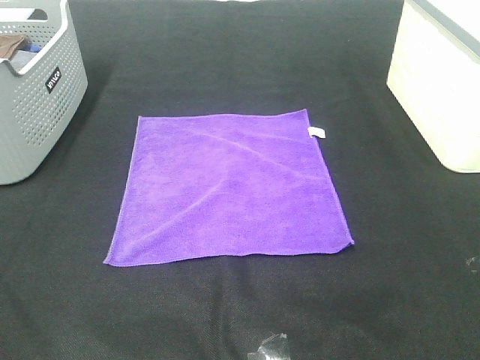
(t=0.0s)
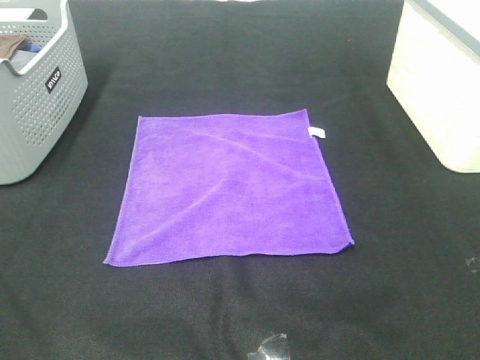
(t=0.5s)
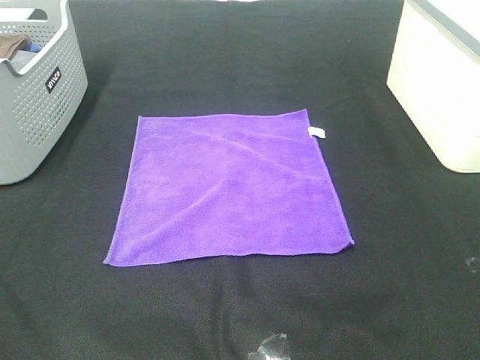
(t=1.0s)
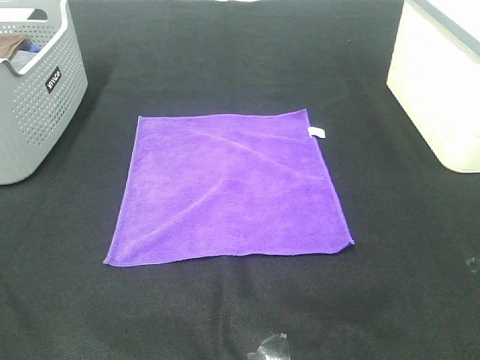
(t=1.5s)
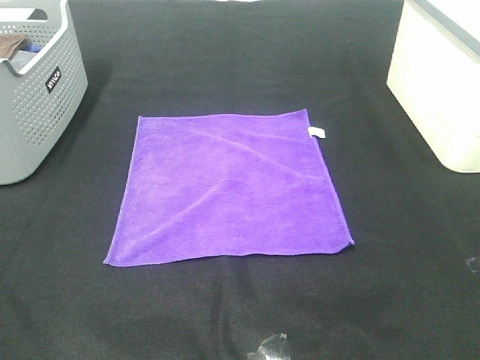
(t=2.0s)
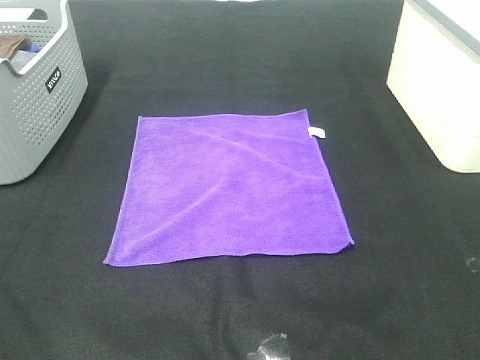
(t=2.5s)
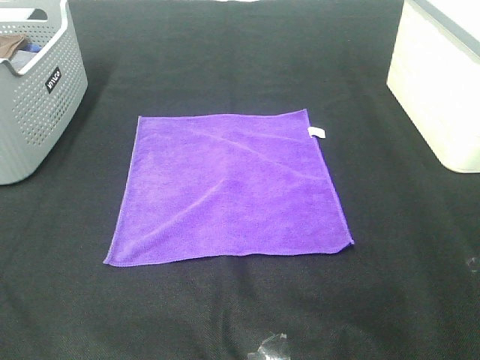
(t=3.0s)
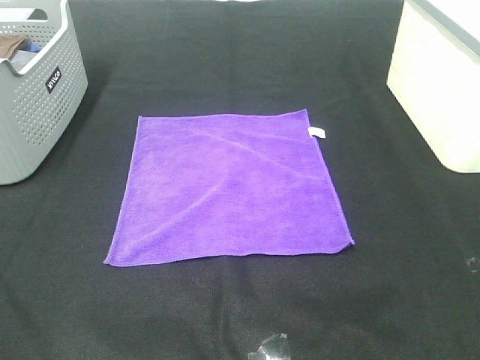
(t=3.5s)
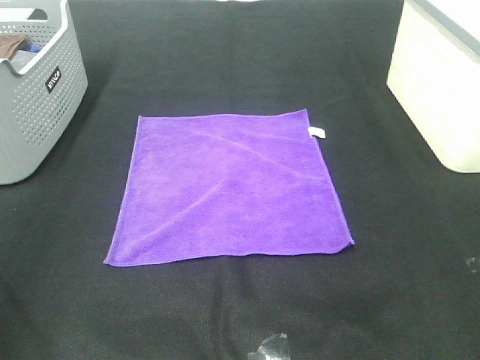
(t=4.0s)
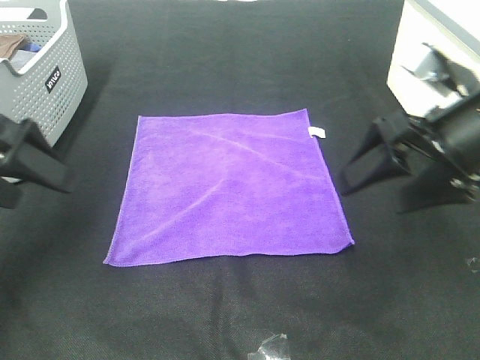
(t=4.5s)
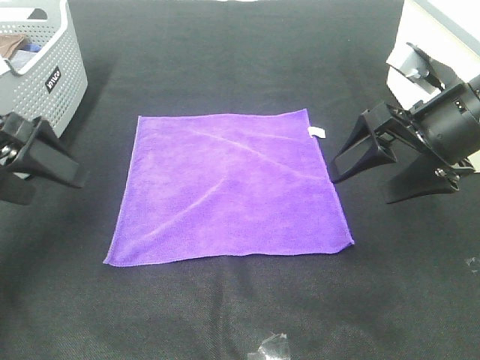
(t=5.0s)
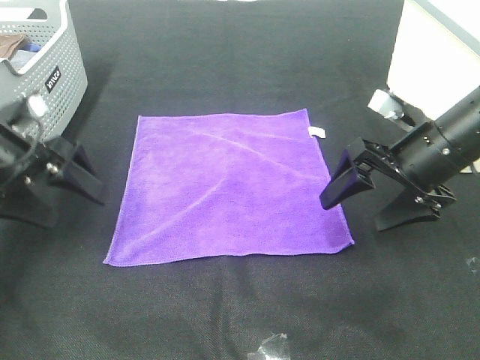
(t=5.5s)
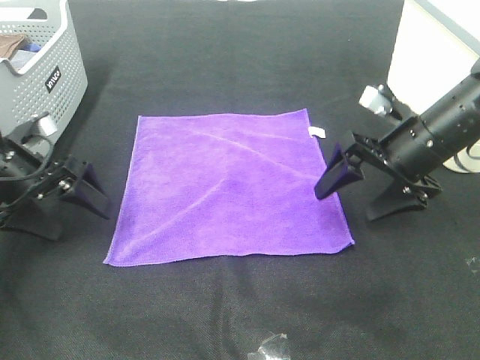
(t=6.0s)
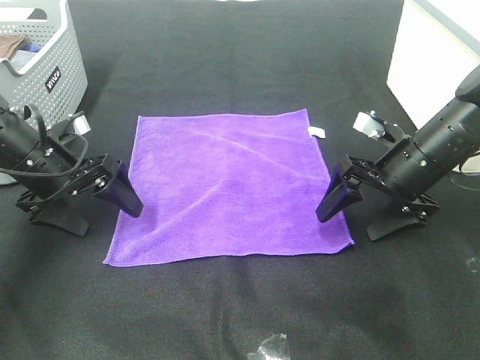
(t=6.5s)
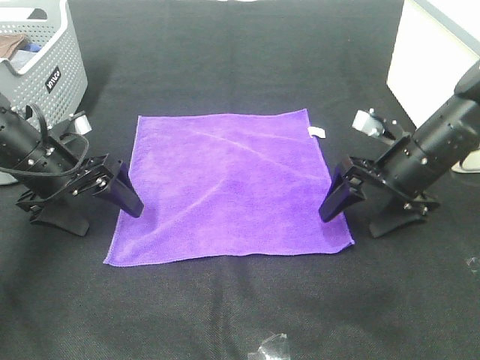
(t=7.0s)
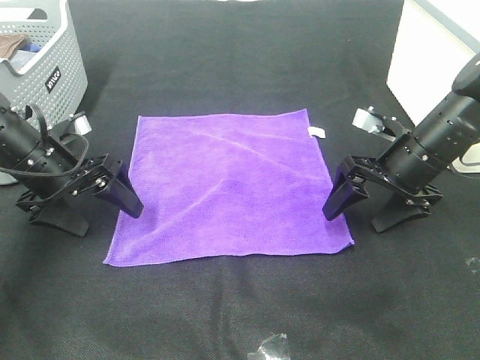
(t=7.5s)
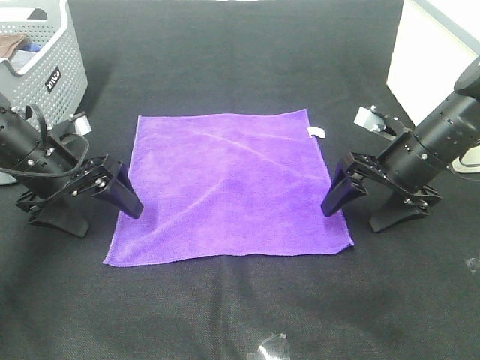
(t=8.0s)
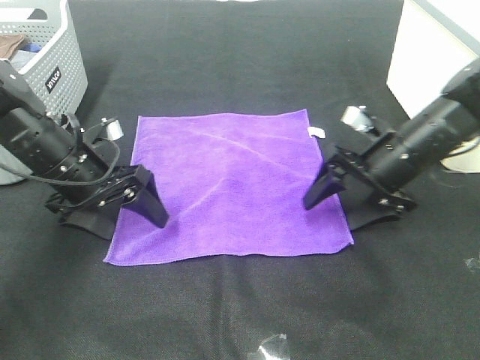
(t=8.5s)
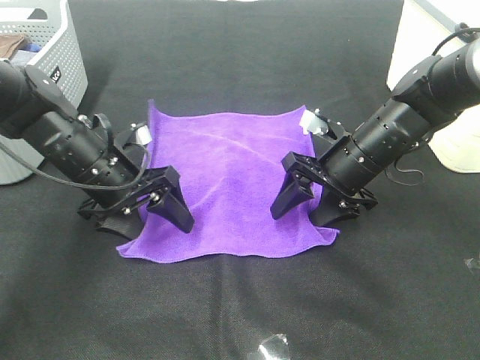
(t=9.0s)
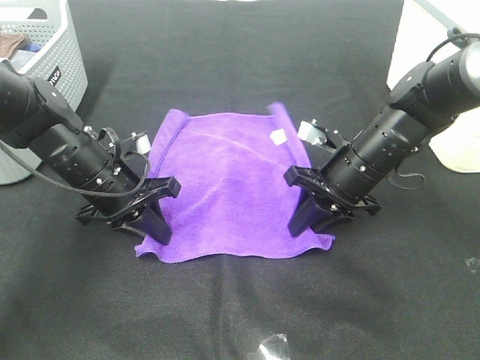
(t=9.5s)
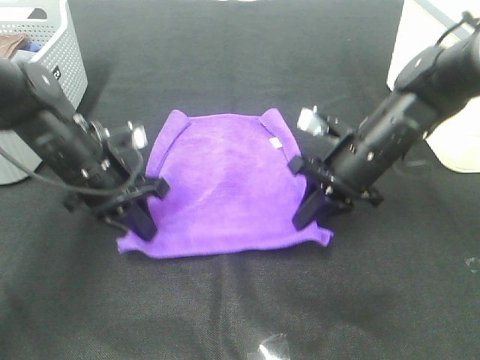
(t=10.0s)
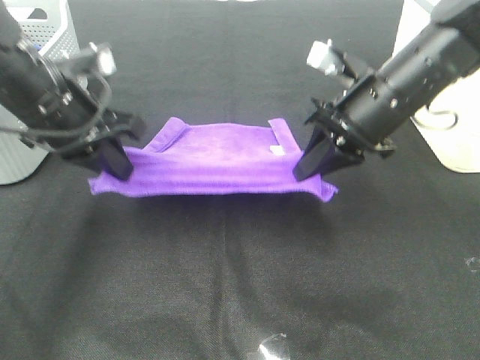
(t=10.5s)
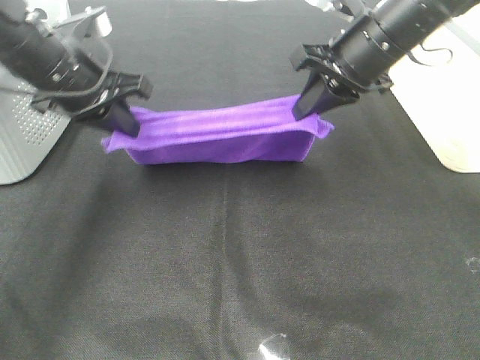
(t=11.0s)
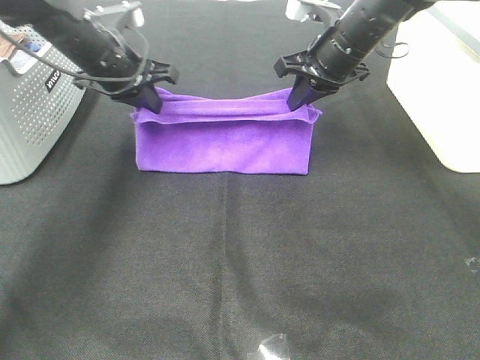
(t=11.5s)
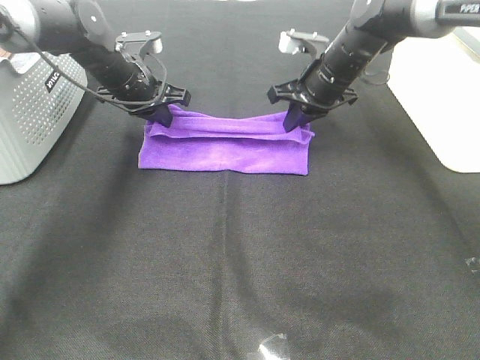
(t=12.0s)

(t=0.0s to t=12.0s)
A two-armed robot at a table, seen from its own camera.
Task of the whole recording: Fold towels.
Step, t=0.0s - t=9.5s: Left hand: grab the bottom left corner of purple towel.
Step, t=0.0s - t=9.5s: Right hand: grab the bottom right corner of purple towel.
t=0.0s - t=2.0s: Both grippers stay about where they are.
t=4.0s - t=6.0s: The left gripper heads downward and forward, covering about 30 cm. The right gripper shifts roughly 30 cm forward and downward.
t=6.0s - t=8.0s: The grippers make only small movements.
t=8.0s - t=10.0s: The left gripper heads to the right, covering some 5 cm, and closes. The right gripper heads to the left, covering some 5 cm, and closes up.
t=10.0s - t=12.0s: Both grippers move forward, roughly 15 cm.

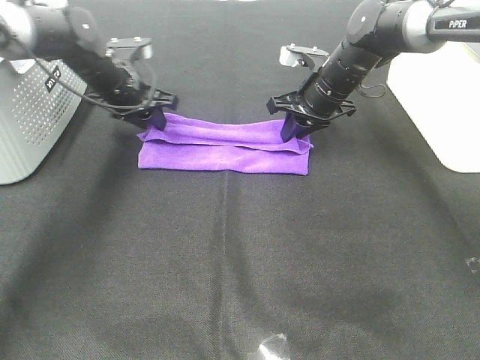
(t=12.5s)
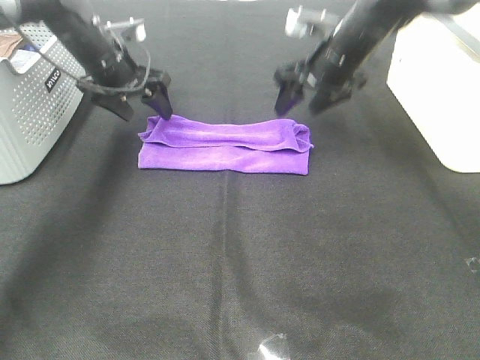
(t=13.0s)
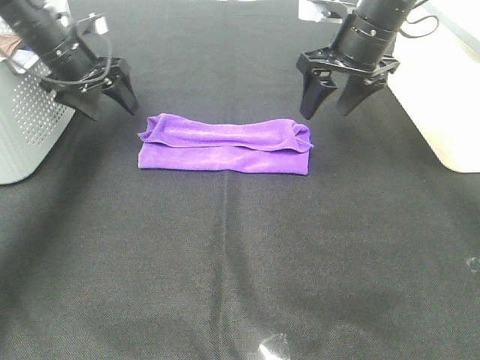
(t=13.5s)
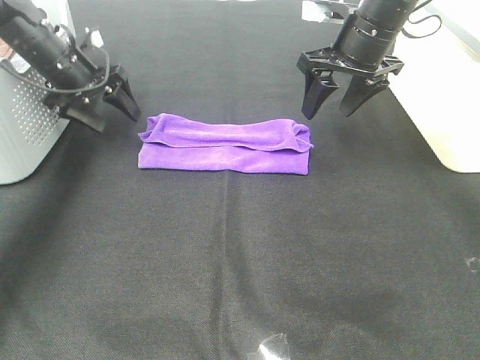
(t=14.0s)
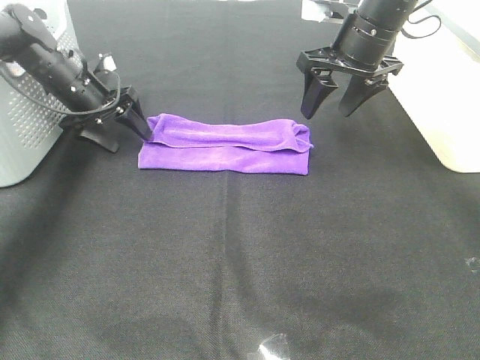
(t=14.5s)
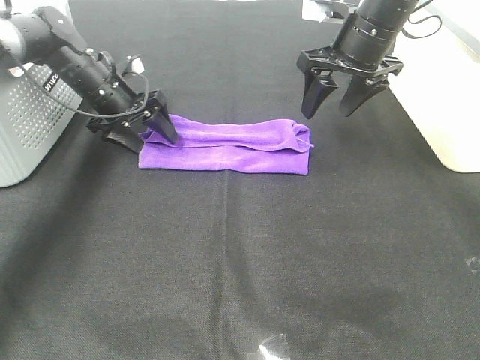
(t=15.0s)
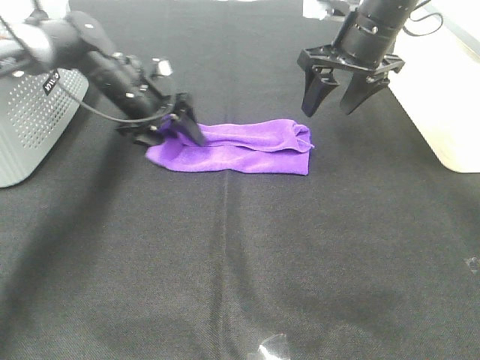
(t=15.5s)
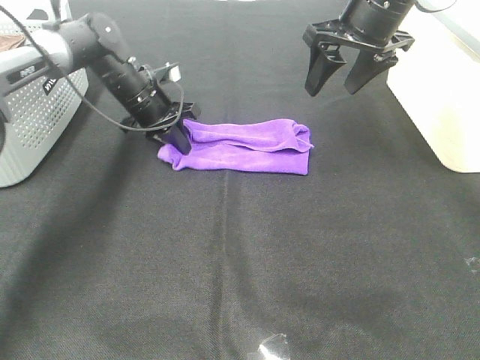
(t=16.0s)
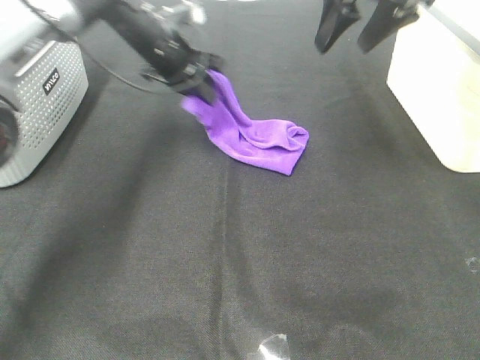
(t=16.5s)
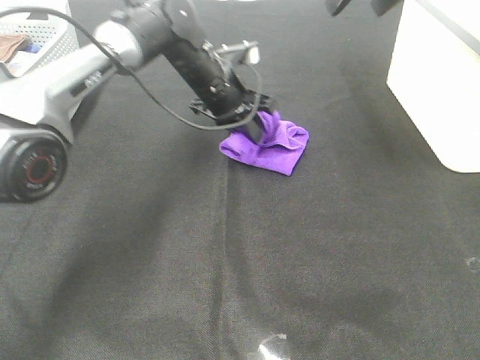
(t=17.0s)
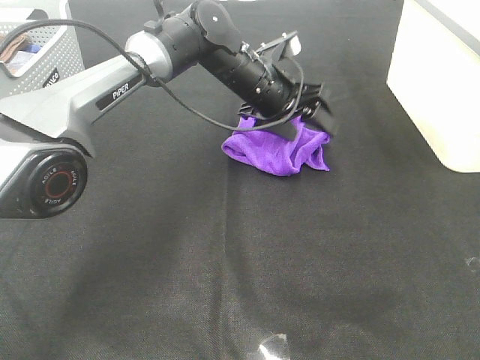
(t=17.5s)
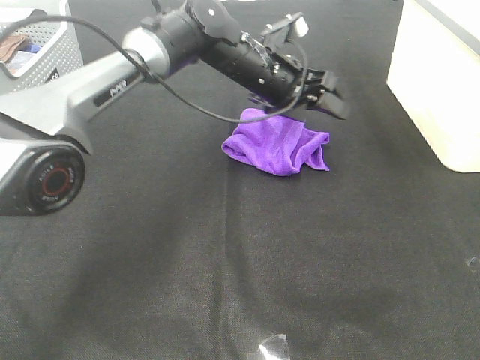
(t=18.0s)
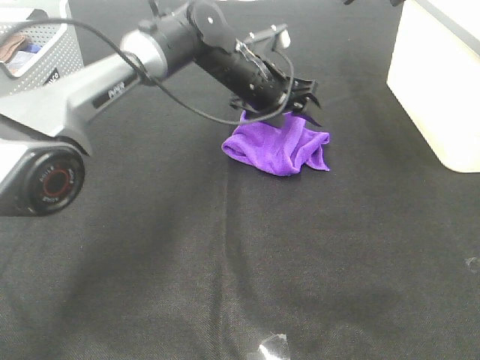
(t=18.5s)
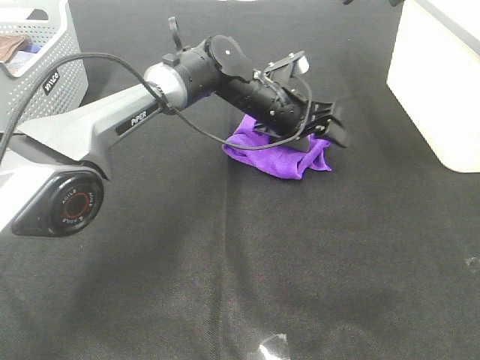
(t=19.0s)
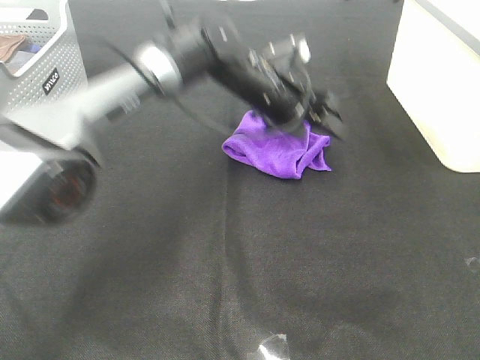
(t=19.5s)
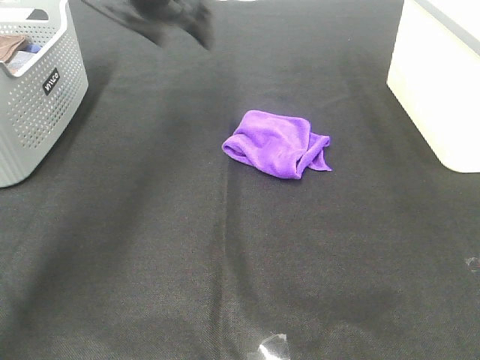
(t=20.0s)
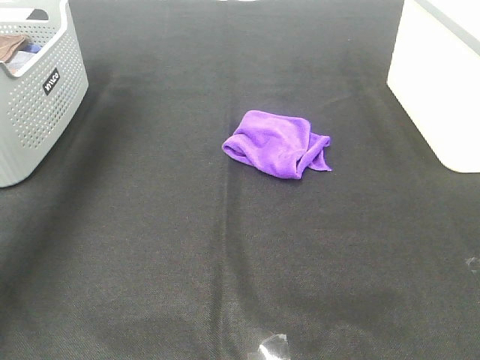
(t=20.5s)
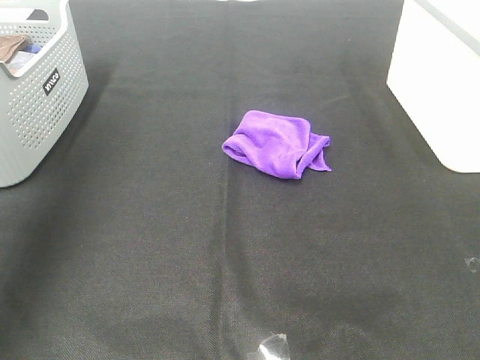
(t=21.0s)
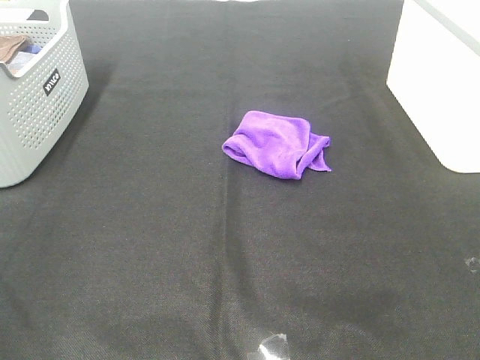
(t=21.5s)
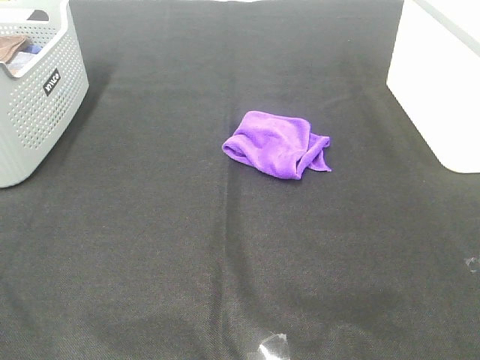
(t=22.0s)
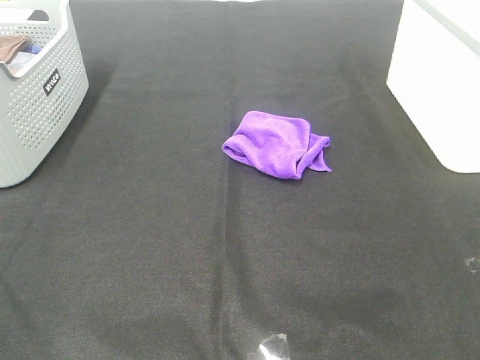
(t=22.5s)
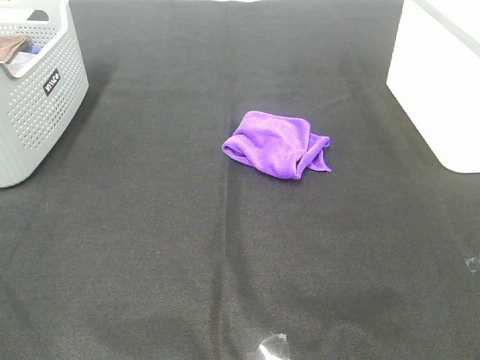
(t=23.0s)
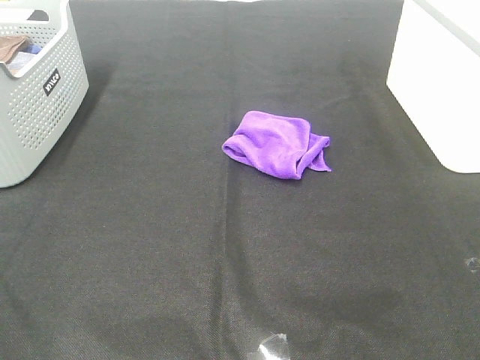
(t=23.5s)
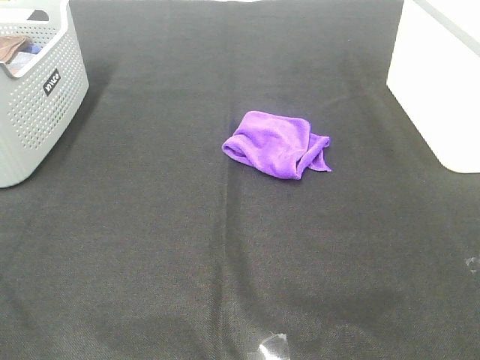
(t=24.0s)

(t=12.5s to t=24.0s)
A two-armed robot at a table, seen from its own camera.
Task of the whole recording: Fold towels.
Step, t=12.5s - t=17.0s: Left hand: fold the purple towel from left to right.
t=12.5s - t=14.5s: The left gripper goes approximately 5 cm to the left. The right gripper heads upward, covering some 10 cm, and opens up.
t=14.5s - t=16.5s: The right gripper goes about 10 cm upward, while the left gripper shifts some 15 cm to the right and upward, and closes up.
t=16.5s - t=18.5s: The right gripper heads upward, covering approximately 5 cm. Meanwhile the left gripper moves to the right, some 10 cm, and opens its fingers.
t=18.5s - t=20.0s: The left gripper heads to the left and upward, covering roughly 20 cm, while the right gripper shifts approximately 10 cm backward and upward.
t=20.0s - t=22.0s: The left gripper moves backward, roughly 50 cm, while the right gripper heads backward and downward, covering some 35 cm.

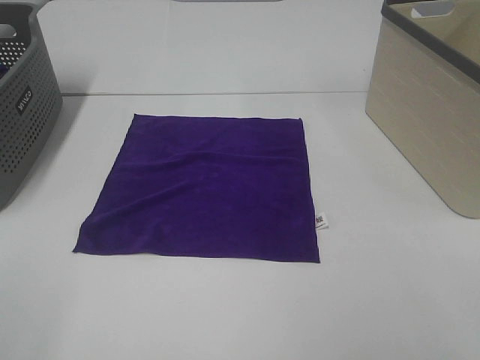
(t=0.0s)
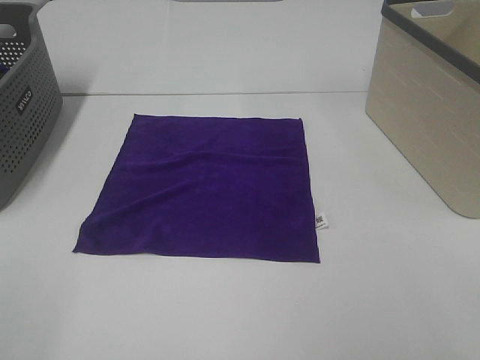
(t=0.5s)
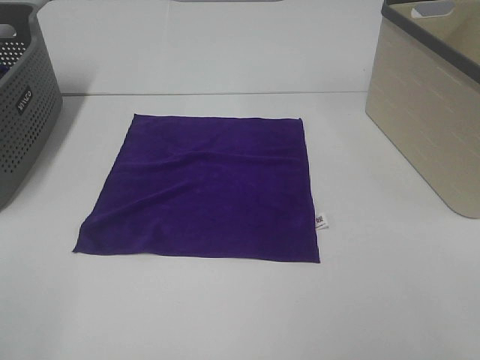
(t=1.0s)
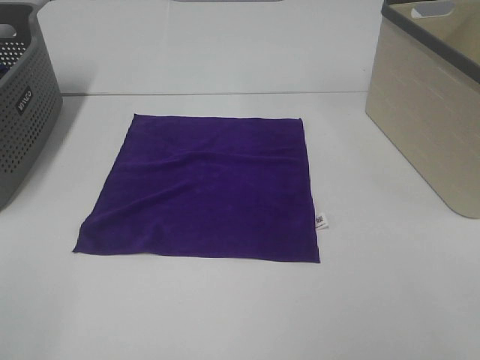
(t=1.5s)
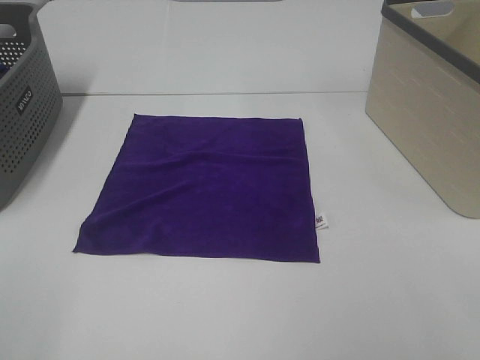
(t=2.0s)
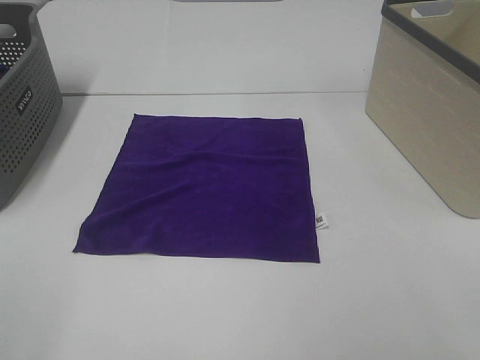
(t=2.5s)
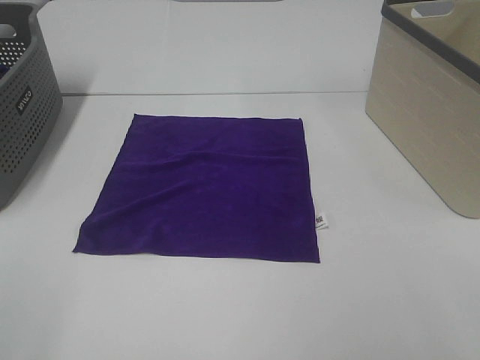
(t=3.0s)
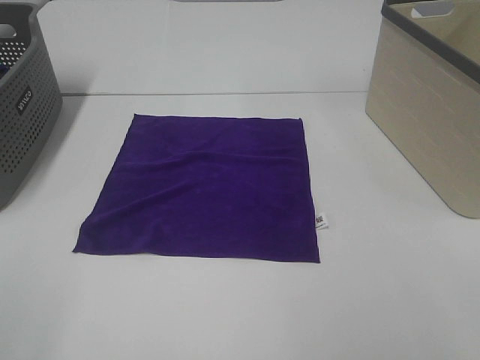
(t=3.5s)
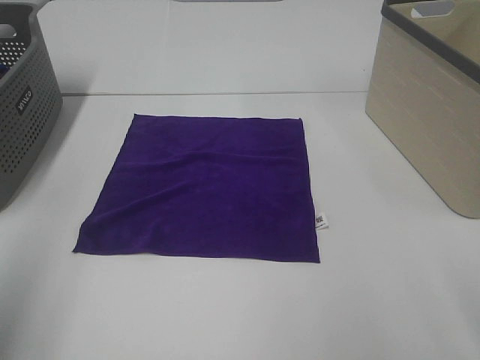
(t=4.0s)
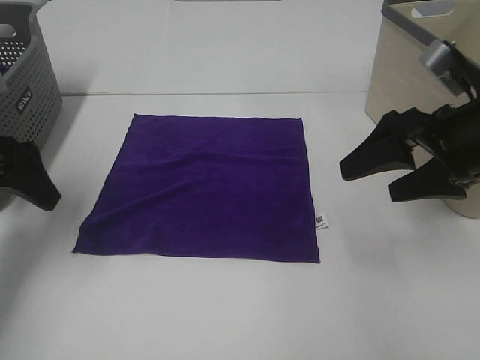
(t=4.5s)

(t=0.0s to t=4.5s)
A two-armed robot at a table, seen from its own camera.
Task of the whole recording: Fold towels.
t=0.0s - t=2.0s: The two grippers keep their place.
t=2.0s - t=4.5s: The grippers both shift forward by approximately 30 cm.
